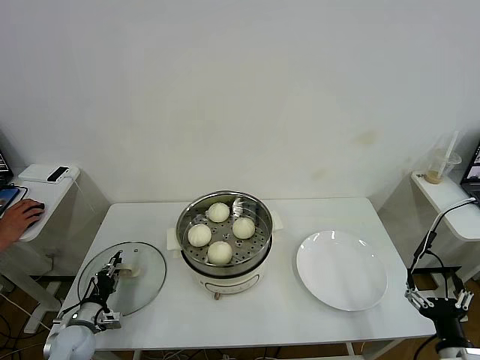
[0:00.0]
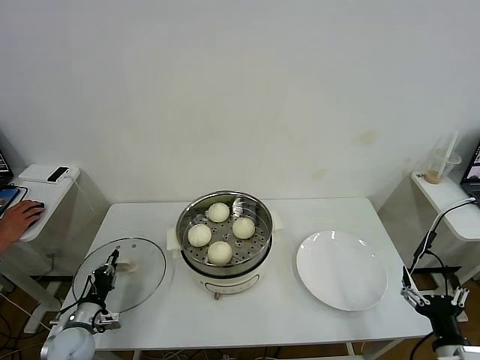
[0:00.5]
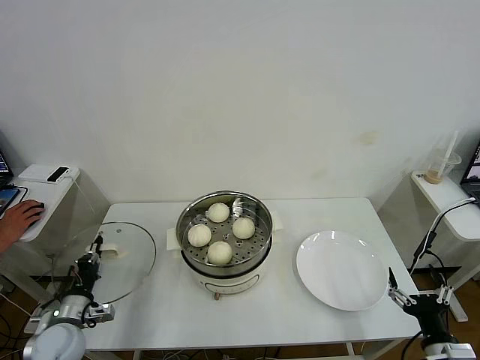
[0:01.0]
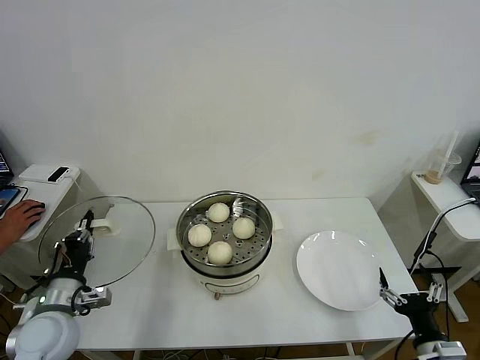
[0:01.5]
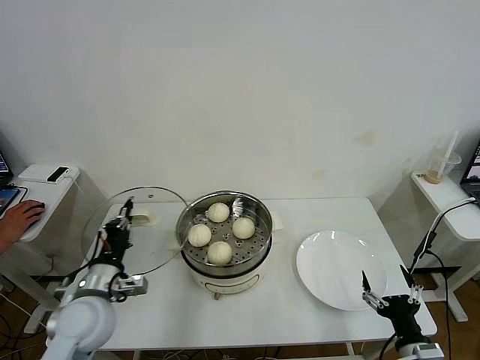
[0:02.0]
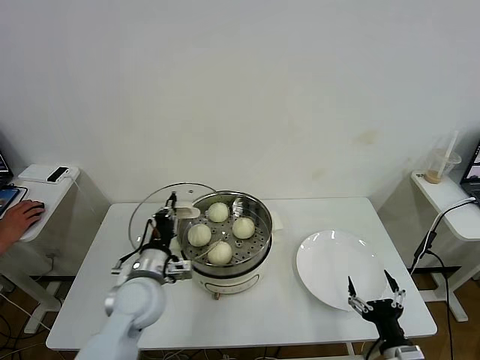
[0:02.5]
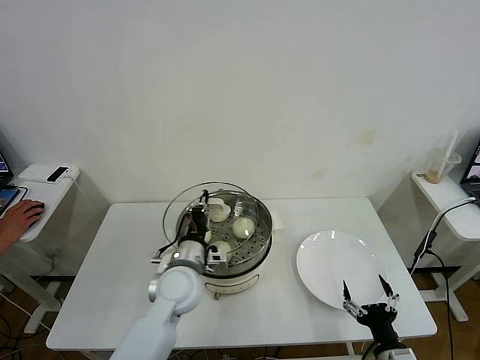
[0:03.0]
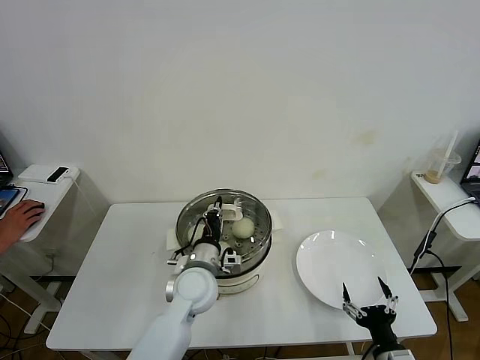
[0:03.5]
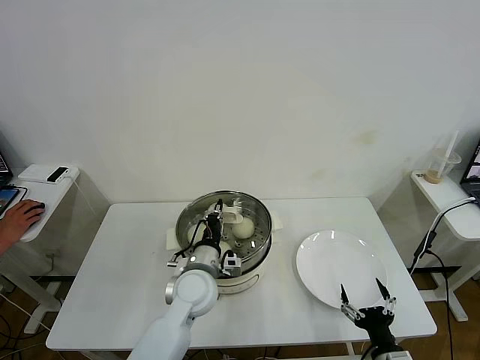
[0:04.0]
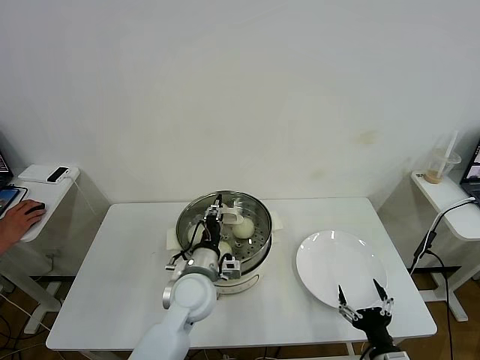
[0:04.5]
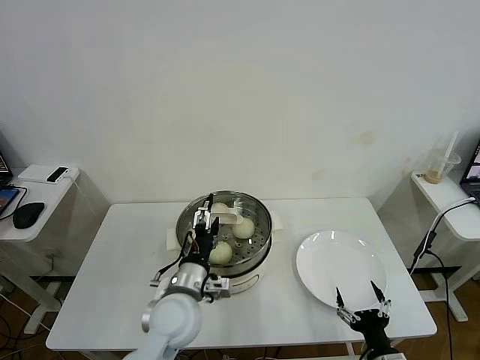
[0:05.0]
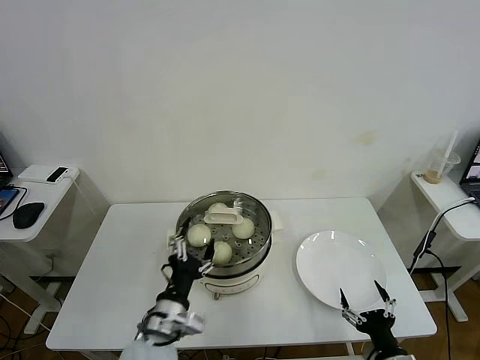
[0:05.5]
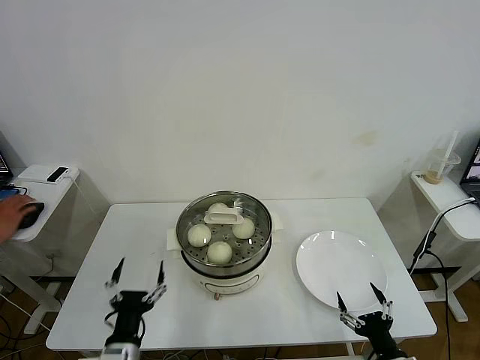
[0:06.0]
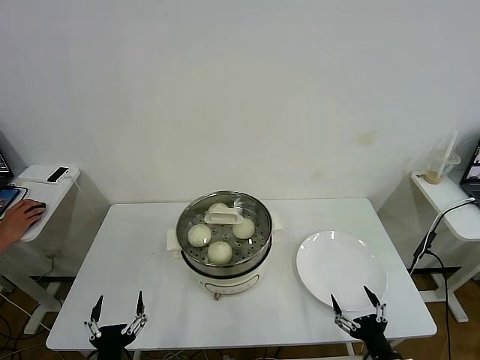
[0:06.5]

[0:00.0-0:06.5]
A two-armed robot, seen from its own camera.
Task of the whole recording: take steamed baozi put them in steamer then cover it.
Step, 0:00.5 to 0:05.0: Place the pot lid on the steamer with left gripper.
0:00.0 to 0:02.0: The left gripper is displaced upward and to the right by roughly 25 cm, and closes up. Meanwhile the right gripper shifts about 5 cm to the left.
0:02.0 to 0:04.5: The left gripper heads to the right, covering approximately 20 cm, and opens its fingers. Meanwhile the right gripper shifts by about 5 cm.
0:04.5 to 0:06.5: The left gripper is displaced backward and to the left by some 30 cm, and opens its fingers.
